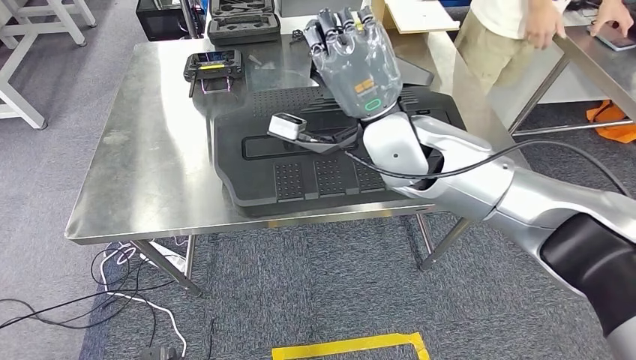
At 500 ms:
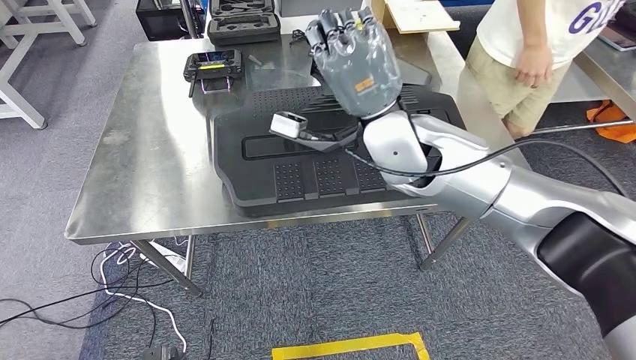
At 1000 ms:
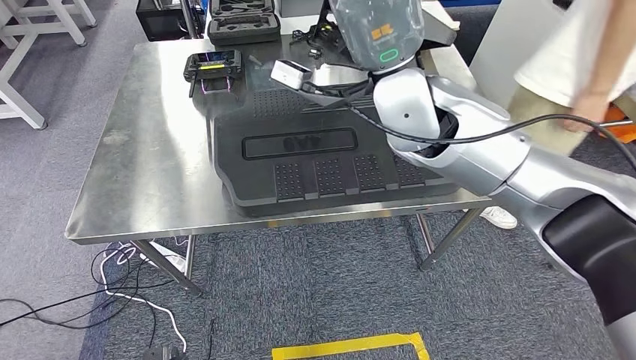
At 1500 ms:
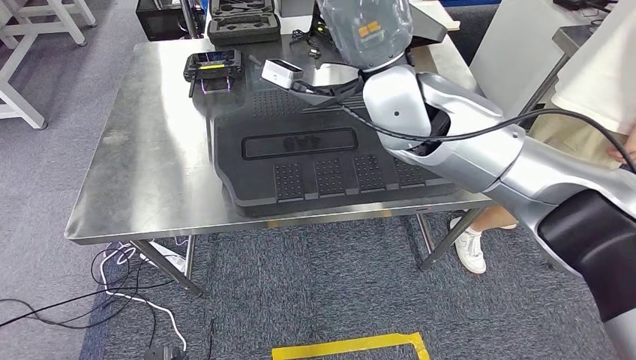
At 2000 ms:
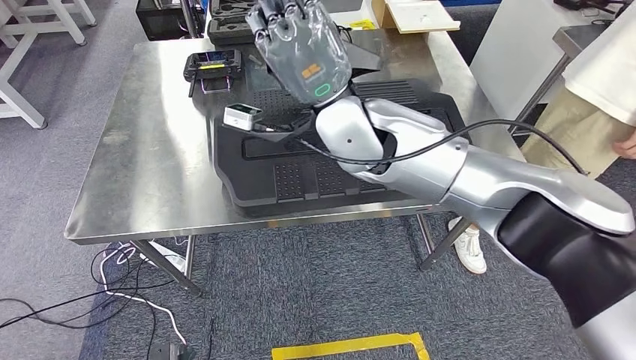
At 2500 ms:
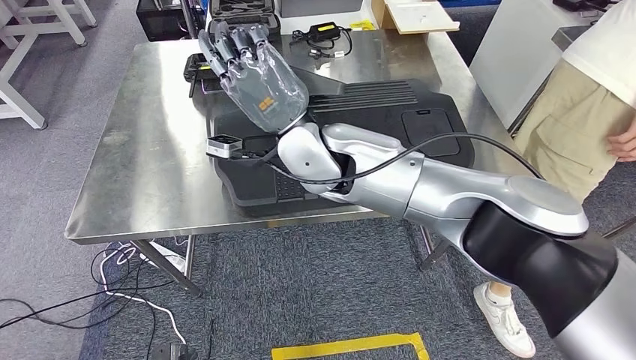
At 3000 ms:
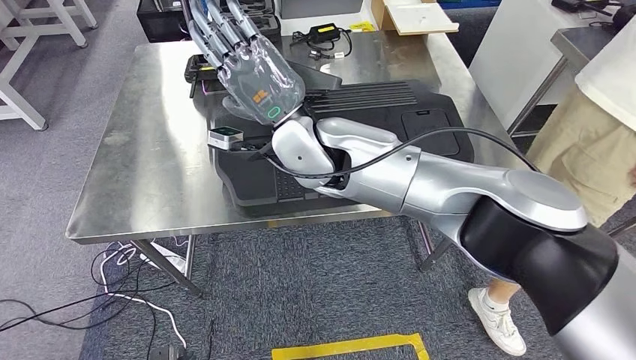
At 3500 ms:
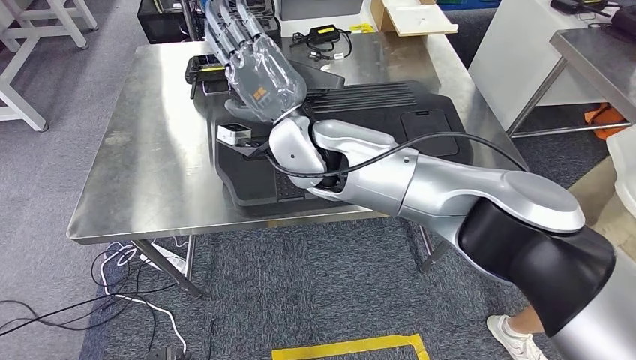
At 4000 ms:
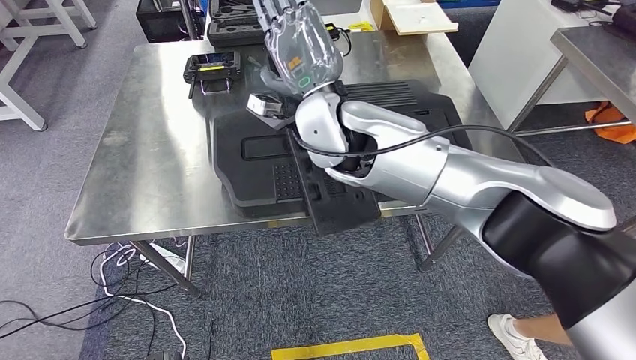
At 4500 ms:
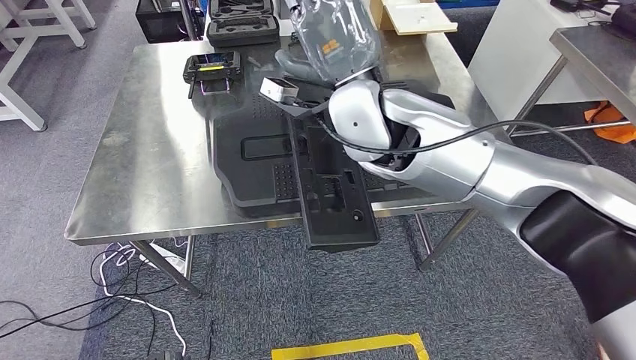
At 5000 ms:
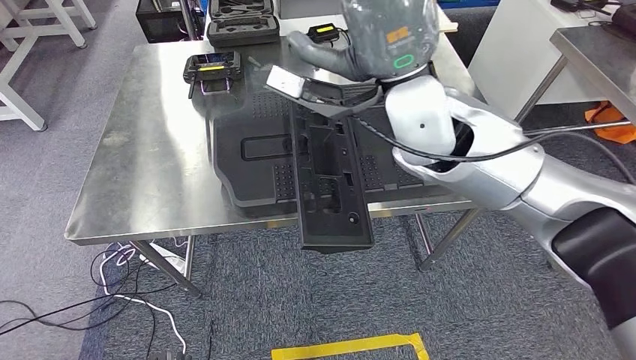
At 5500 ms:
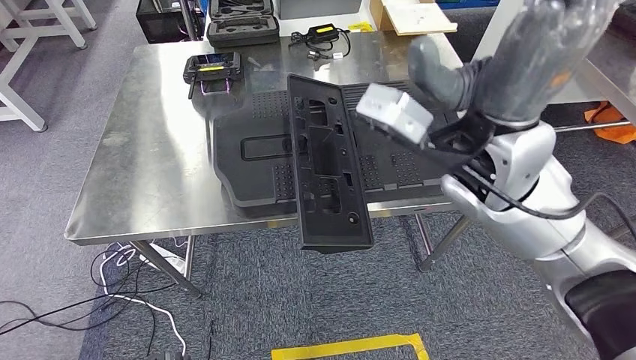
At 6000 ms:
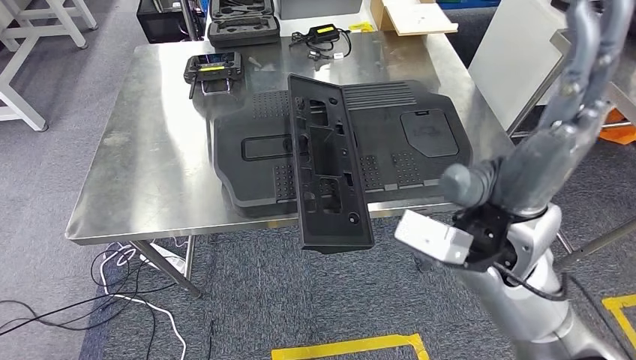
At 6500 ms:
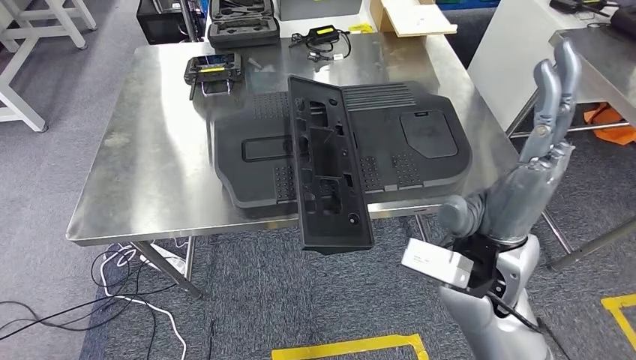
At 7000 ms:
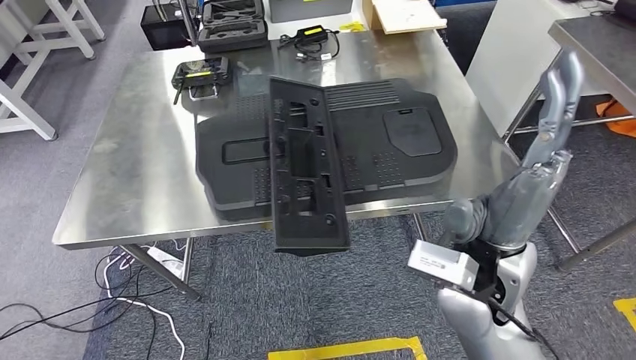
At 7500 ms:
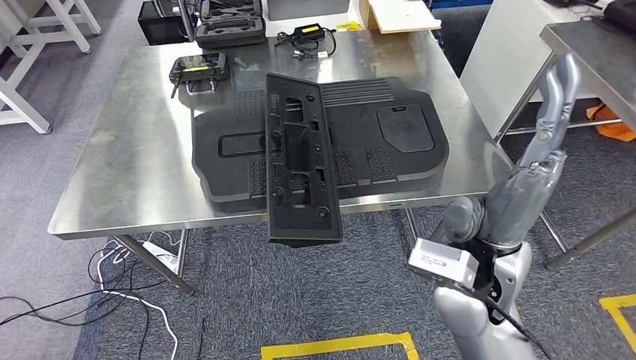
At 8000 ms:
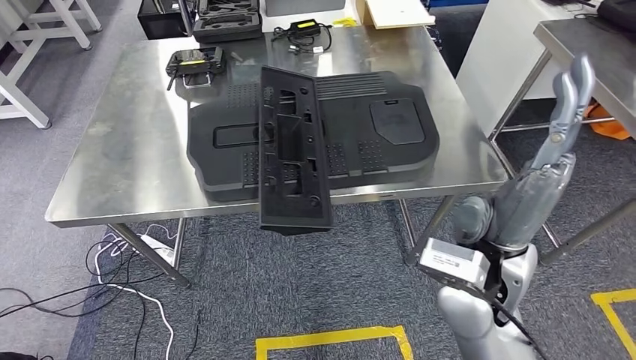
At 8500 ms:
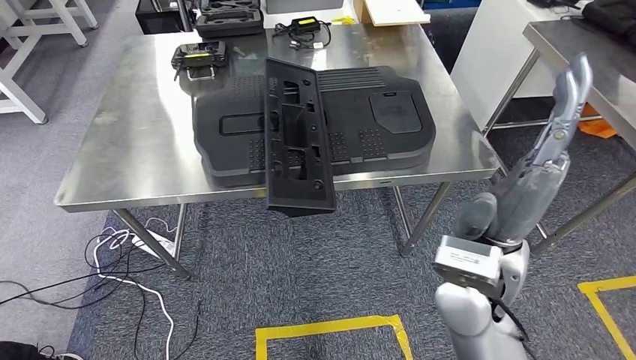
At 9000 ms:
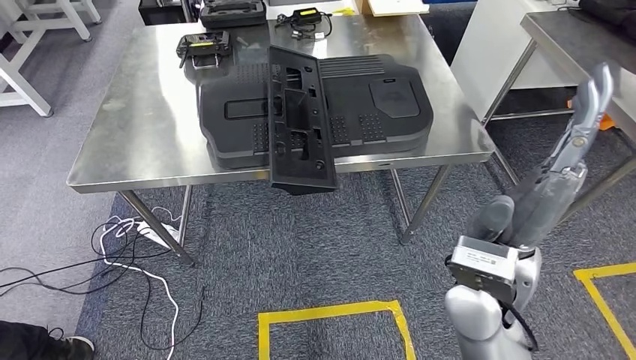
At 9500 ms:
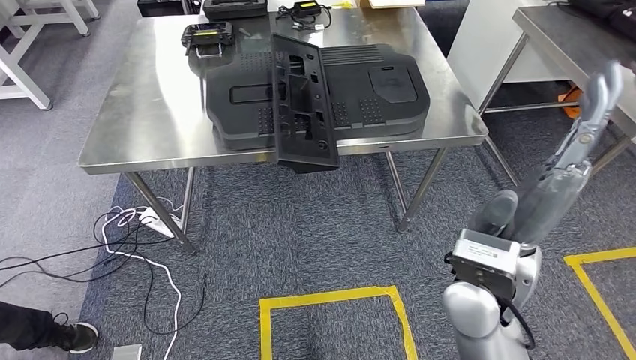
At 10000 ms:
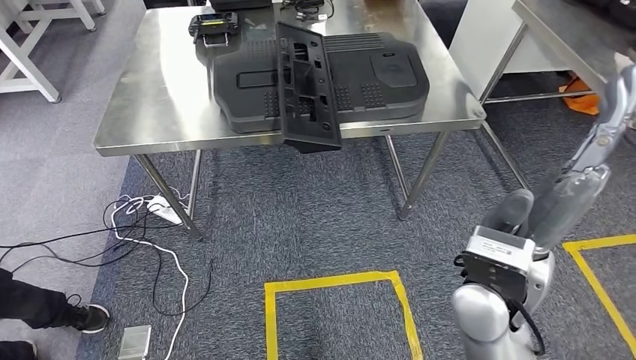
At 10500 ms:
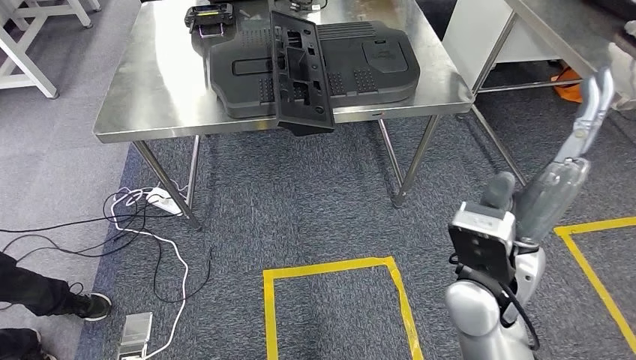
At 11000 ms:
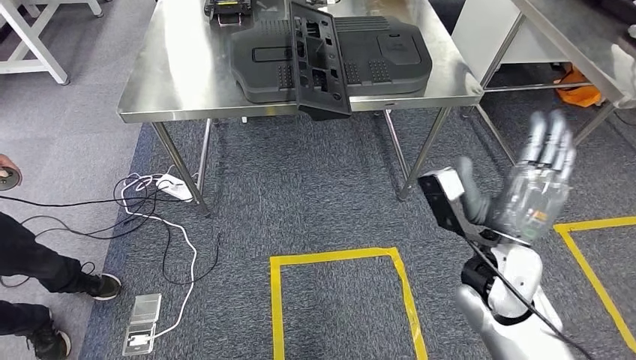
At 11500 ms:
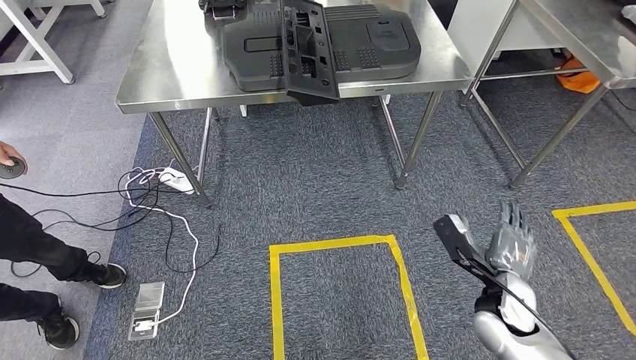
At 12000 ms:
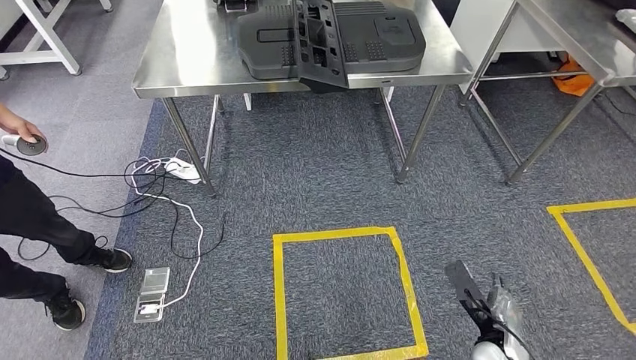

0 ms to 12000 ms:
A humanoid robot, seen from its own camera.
Step, 0 ms to 6000 ms: Insert the large material into the corresponding hole on the workbench.

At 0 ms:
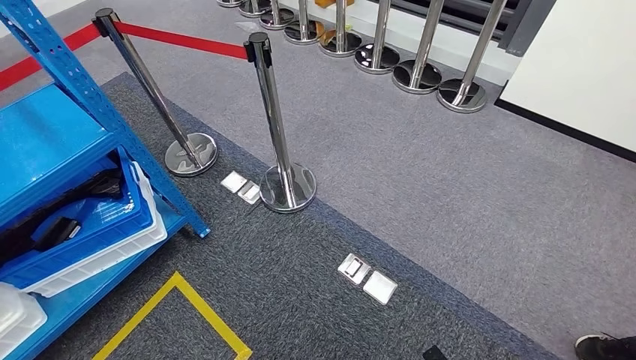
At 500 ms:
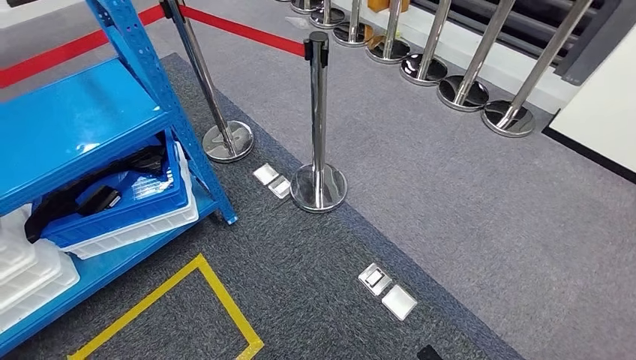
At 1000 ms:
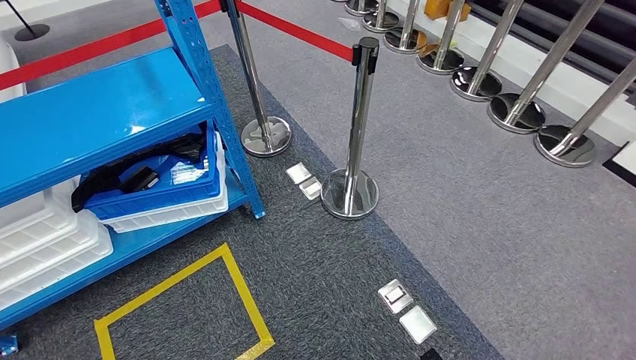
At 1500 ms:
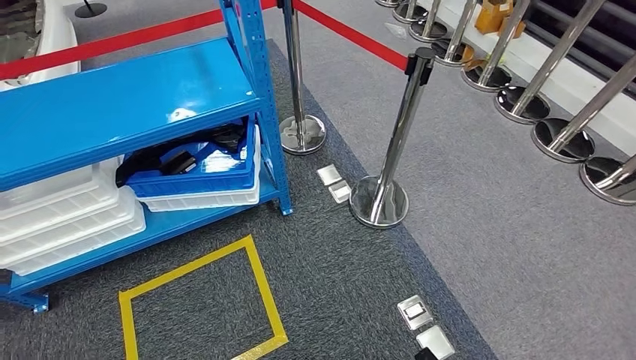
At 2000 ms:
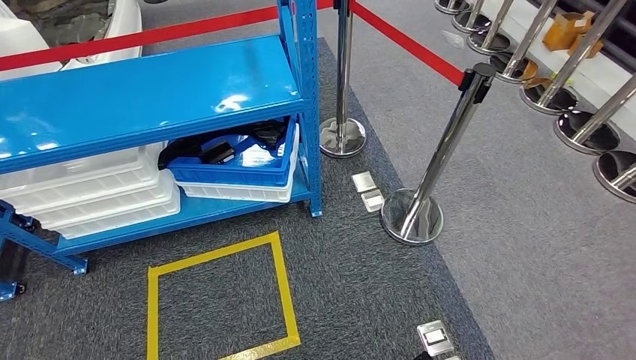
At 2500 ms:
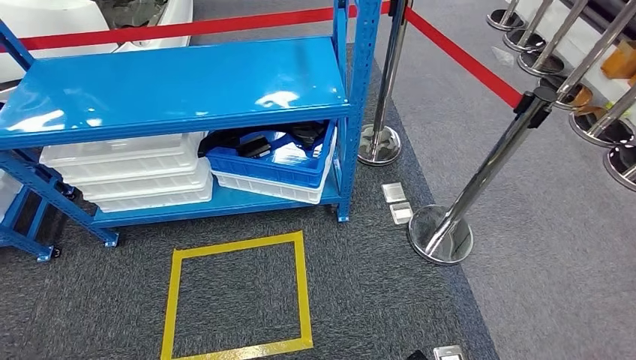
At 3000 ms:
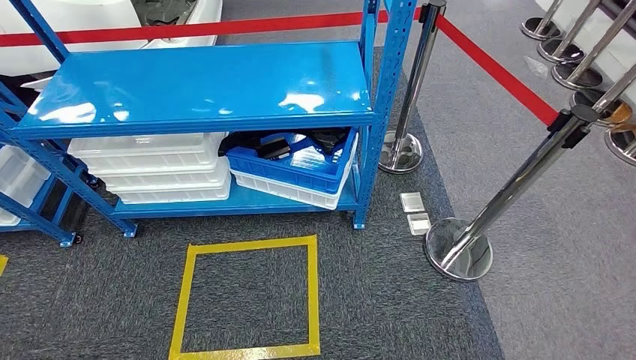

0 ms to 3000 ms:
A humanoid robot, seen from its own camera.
Step, 0 ms to 3000 ms: Move to the initial position of the shelf.
